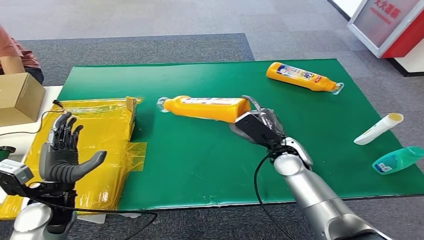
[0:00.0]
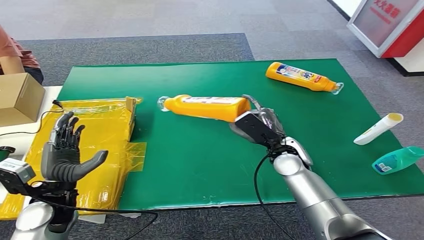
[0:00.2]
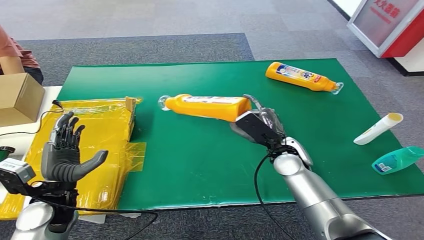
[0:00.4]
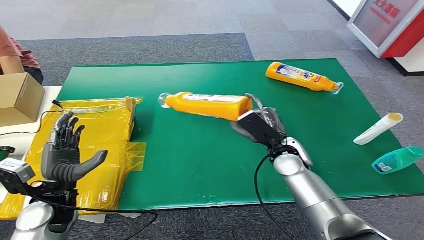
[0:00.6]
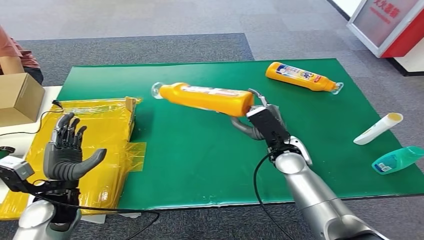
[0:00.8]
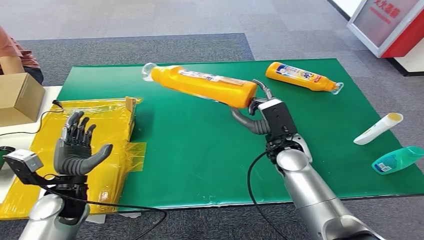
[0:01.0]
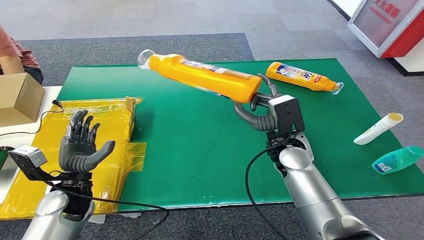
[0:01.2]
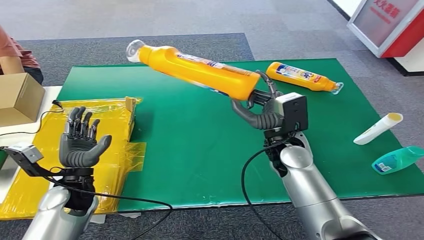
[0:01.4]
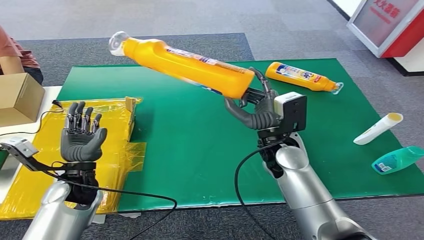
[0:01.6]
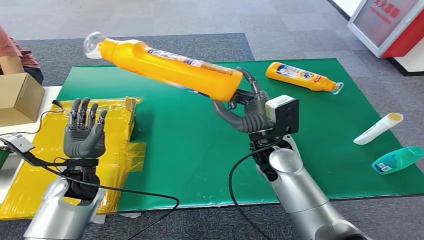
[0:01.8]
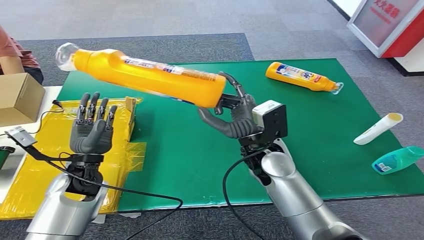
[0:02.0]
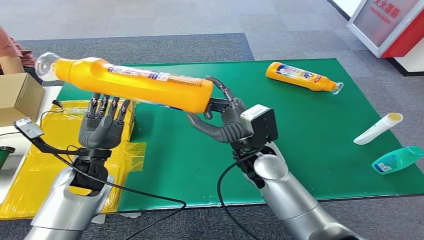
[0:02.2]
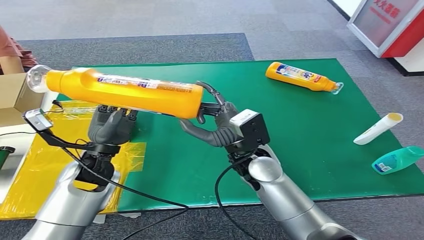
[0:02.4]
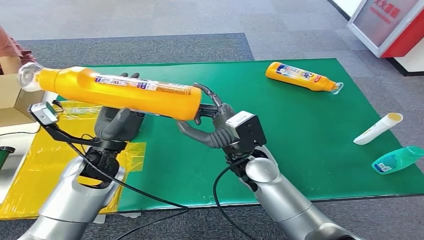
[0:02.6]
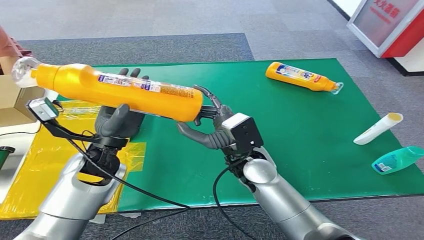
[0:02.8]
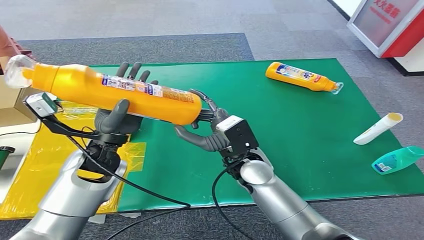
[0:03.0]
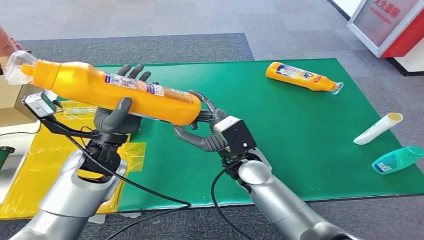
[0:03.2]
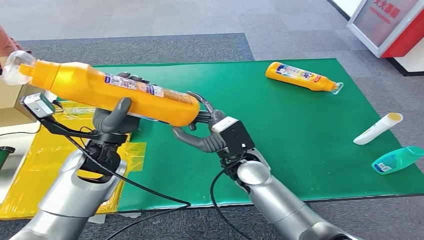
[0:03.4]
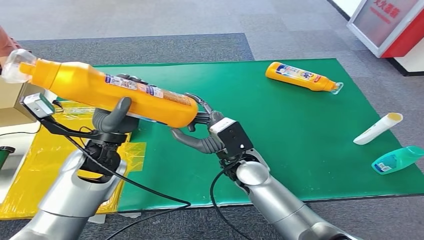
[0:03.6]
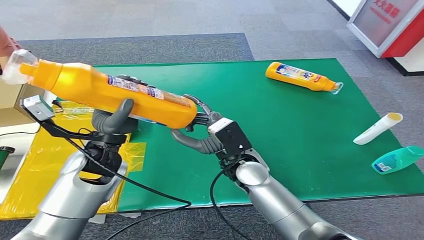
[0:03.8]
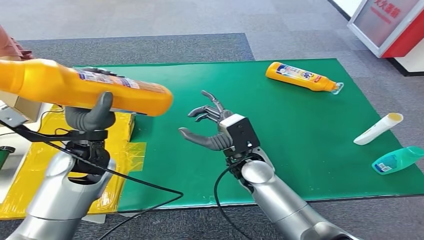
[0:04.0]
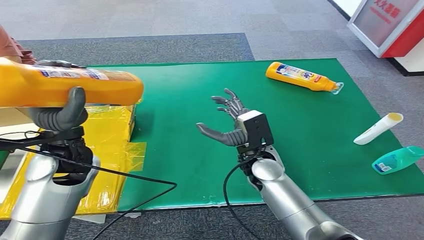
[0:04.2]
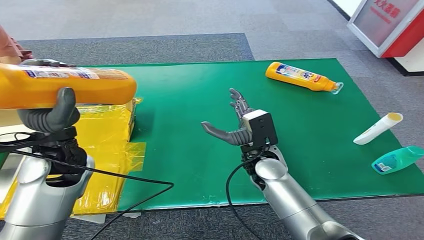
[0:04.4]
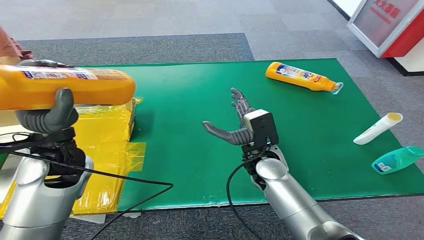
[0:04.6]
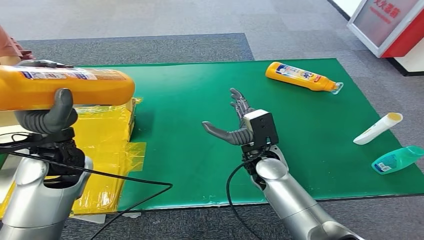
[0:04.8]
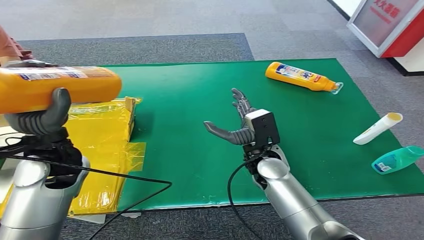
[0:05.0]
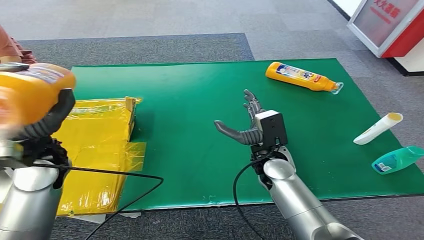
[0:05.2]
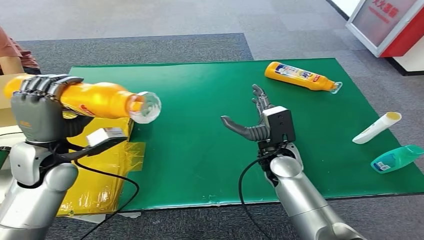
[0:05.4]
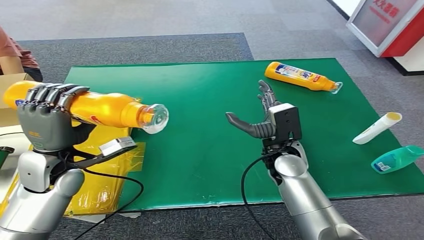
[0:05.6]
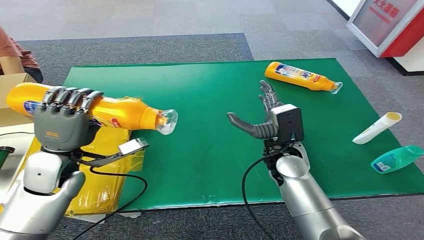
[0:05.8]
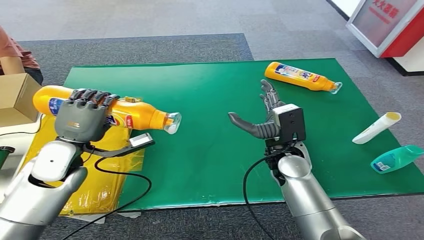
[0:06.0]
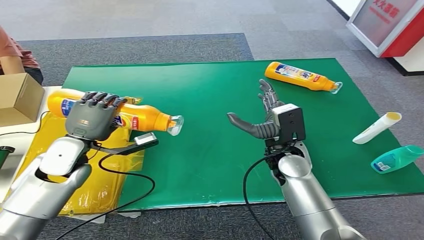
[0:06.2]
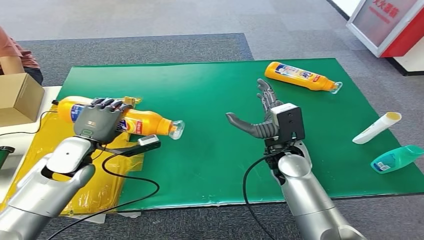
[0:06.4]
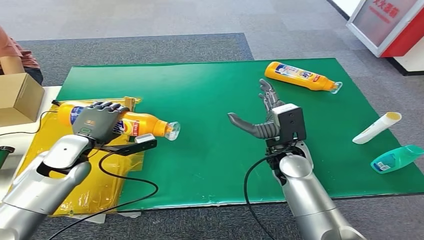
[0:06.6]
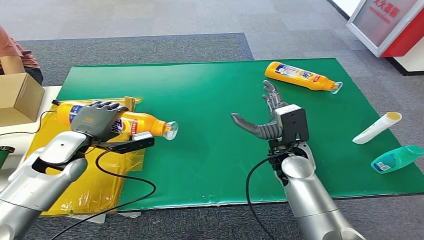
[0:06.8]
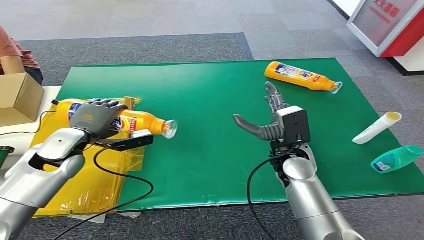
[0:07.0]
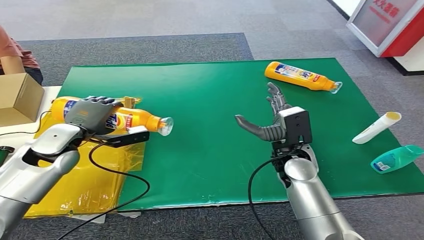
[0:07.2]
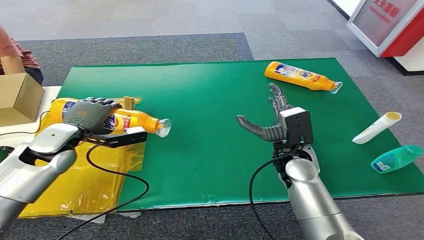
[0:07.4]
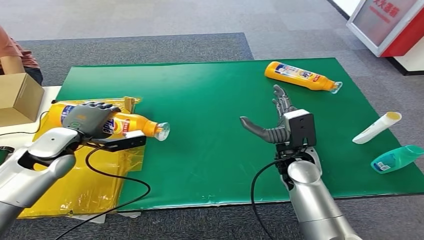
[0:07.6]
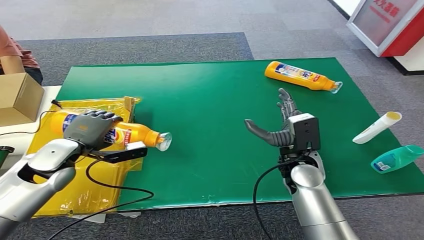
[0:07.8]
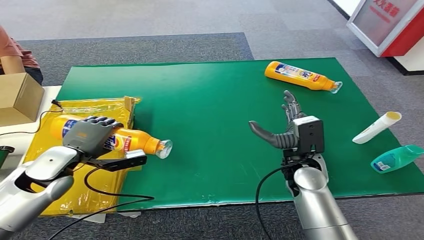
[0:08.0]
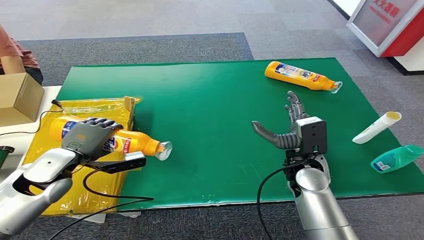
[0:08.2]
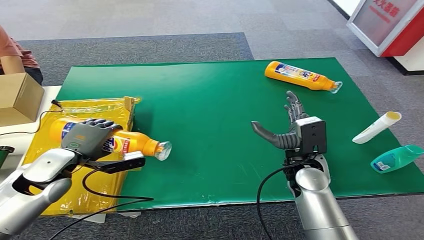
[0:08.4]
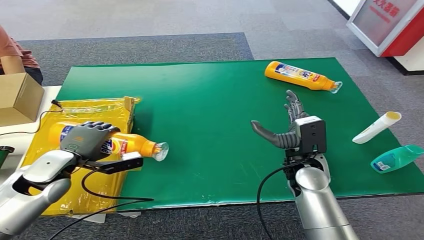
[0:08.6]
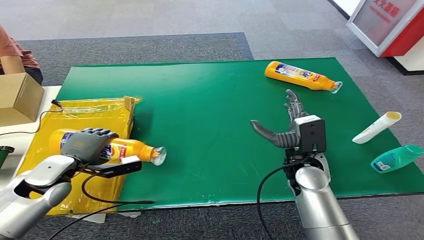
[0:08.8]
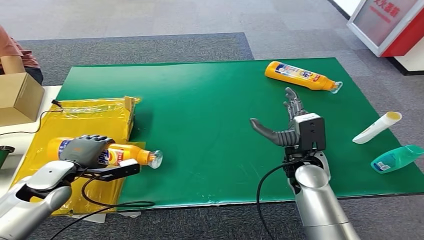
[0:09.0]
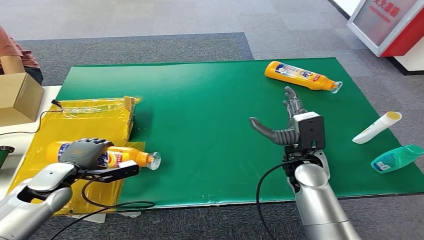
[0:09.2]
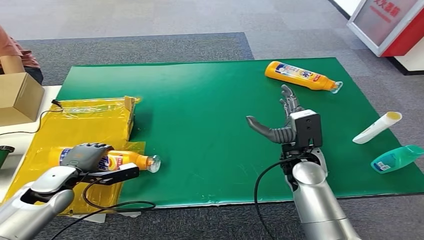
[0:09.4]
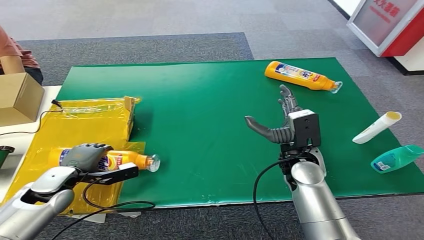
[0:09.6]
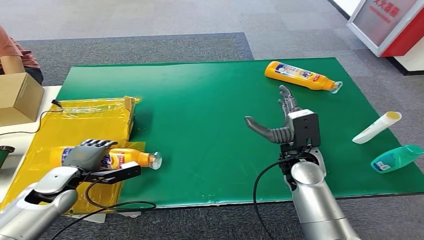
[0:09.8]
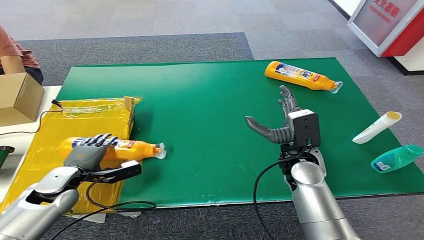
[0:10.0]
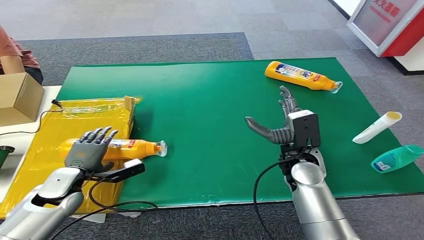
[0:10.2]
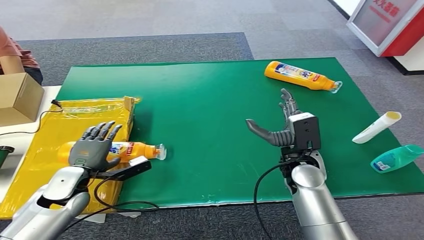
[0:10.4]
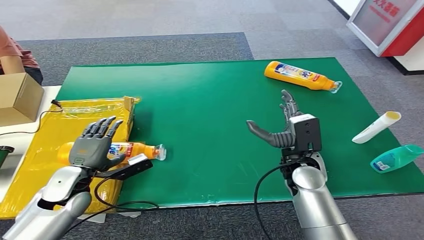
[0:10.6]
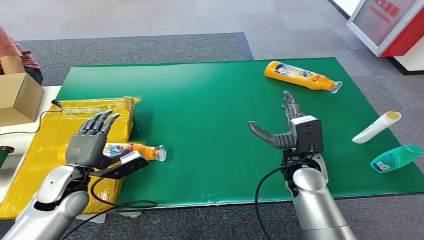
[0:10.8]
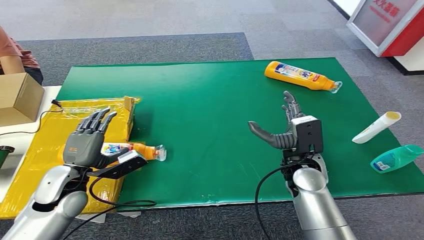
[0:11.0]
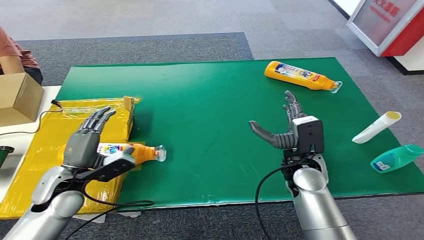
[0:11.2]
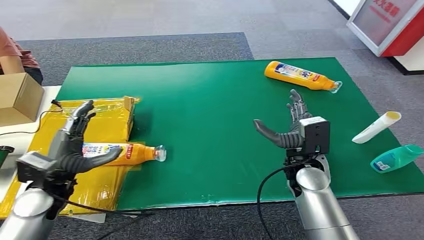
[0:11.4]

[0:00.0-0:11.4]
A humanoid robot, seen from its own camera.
Step, 0:01.4 to 0:11.2: Turn the bottle to the front side.
0:07.2 to 0:08.6: The left hand travels backward by some 5 cm.
0:08.6 to 0:10.0: The left hand shifts some 5 cm downward.
0:10.0 to 0:11.4: The left hand goes approximately 5 cm upward.

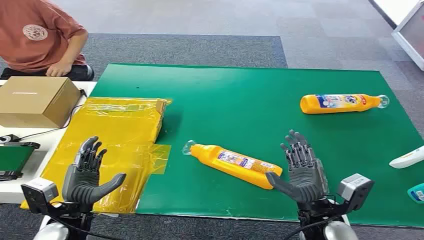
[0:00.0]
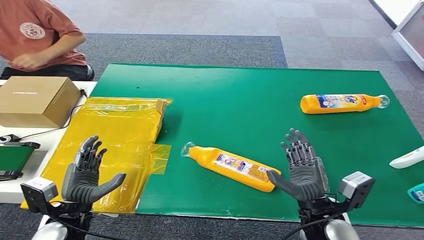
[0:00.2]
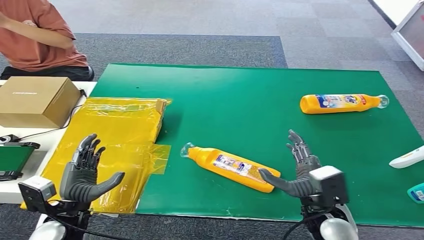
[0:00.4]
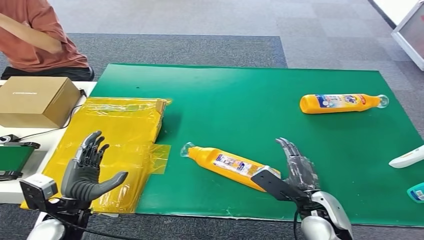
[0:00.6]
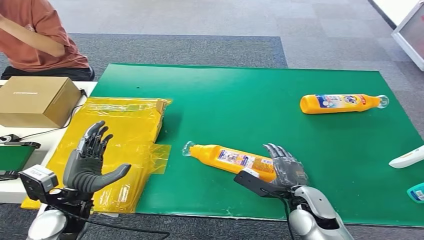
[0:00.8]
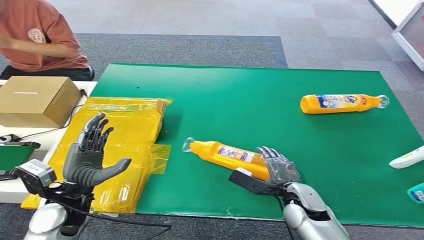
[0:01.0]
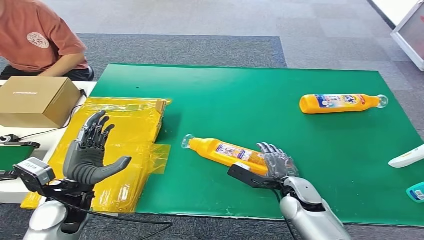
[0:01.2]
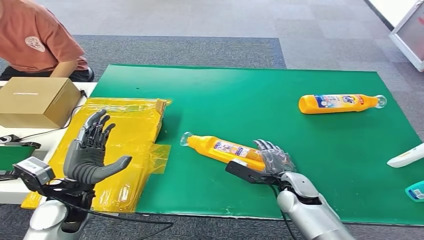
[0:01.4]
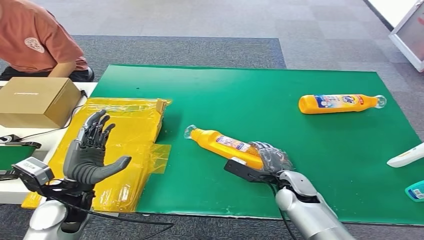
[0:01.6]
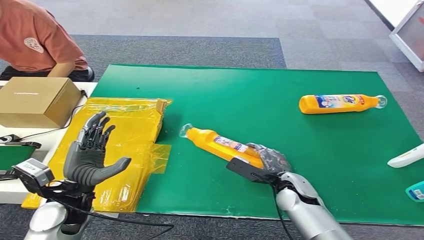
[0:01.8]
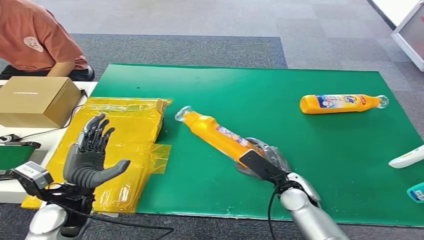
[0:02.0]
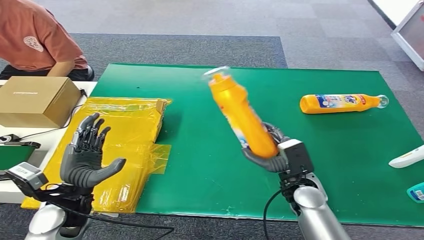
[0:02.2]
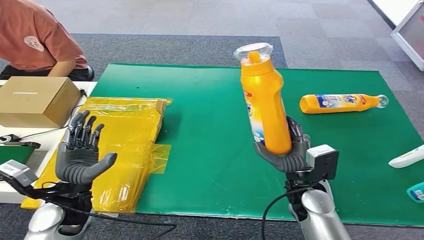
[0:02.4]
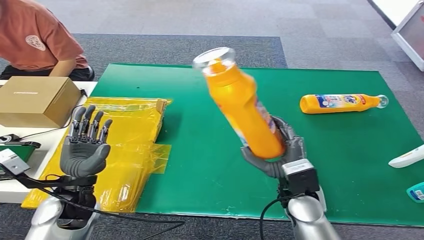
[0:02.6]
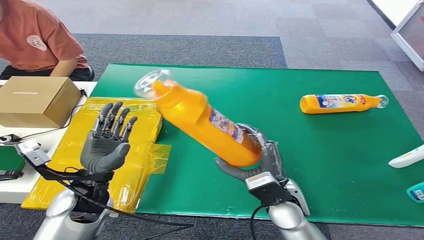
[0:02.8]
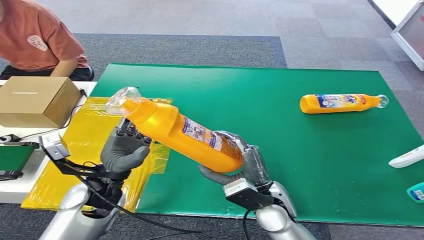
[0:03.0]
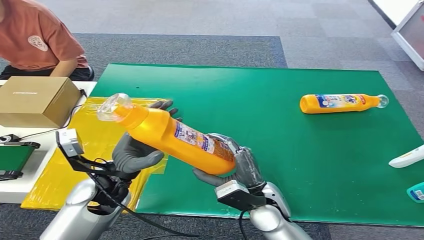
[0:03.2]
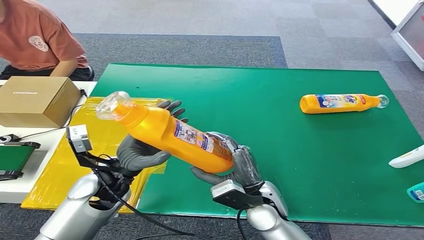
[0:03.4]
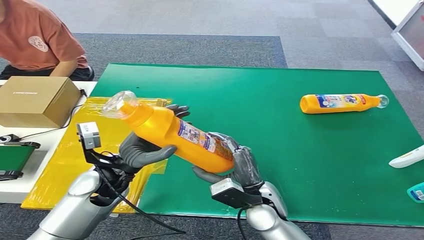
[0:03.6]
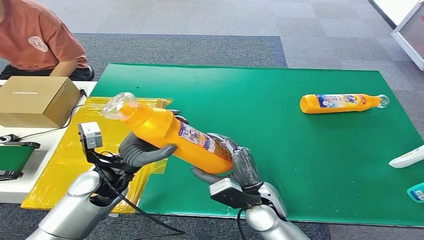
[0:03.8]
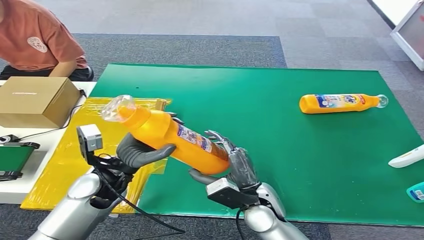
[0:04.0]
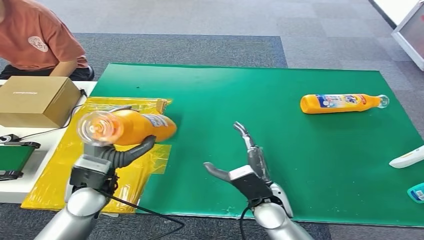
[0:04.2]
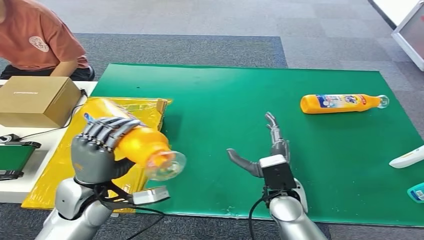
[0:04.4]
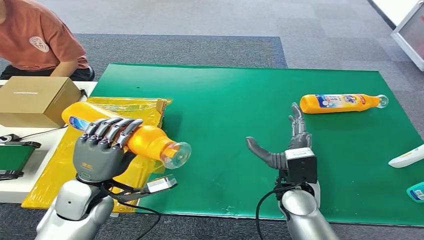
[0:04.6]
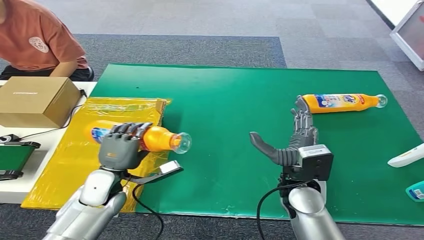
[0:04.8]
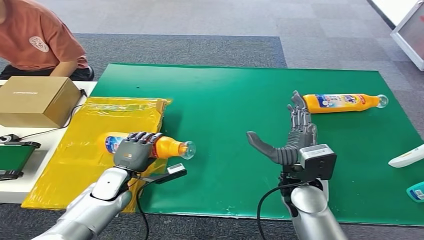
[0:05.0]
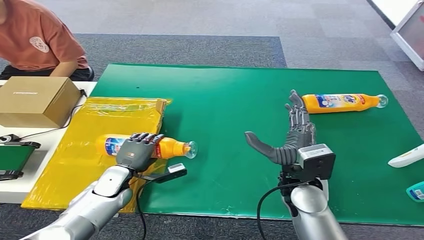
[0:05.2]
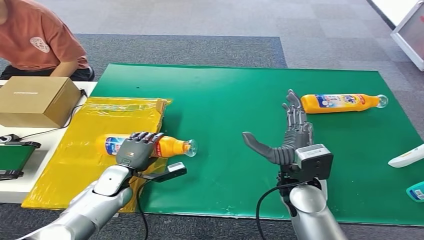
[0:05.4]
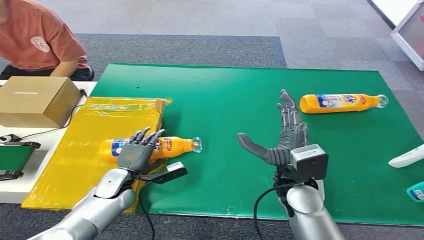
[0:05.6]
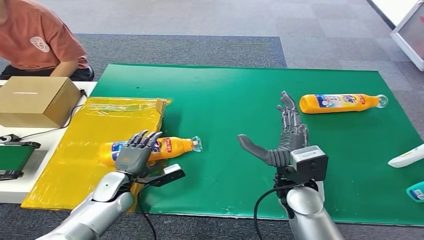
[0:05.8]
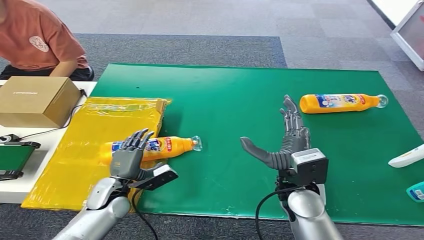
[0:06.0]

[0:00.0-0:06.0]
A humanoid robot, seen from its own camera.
Step, 0:00.0 to 0:02.2: Pick up the bottle from the table.
Step, 0:02.4 to 0:06.0: Turn the bottle to the front side.
0:04.4 to 0:06.0: The left hand goes roughly 15 cm downward. Meanwhile the right hand shifts approximately 5 cm upward.
